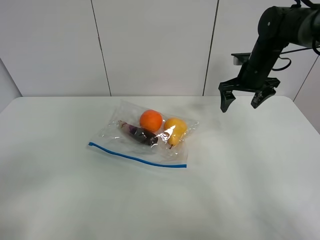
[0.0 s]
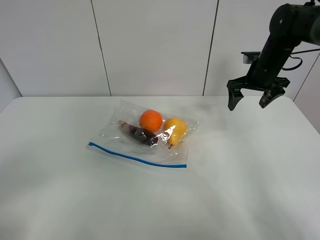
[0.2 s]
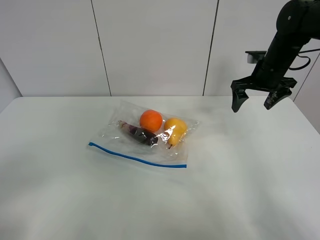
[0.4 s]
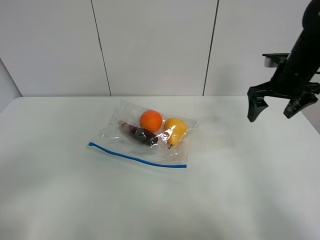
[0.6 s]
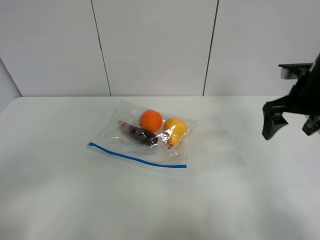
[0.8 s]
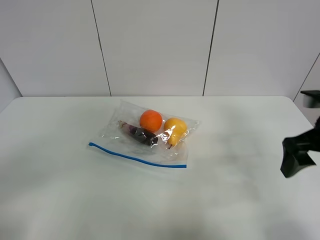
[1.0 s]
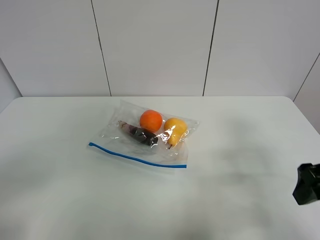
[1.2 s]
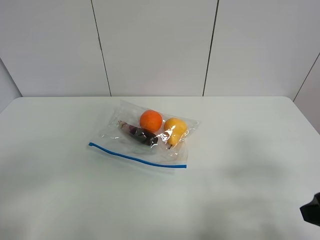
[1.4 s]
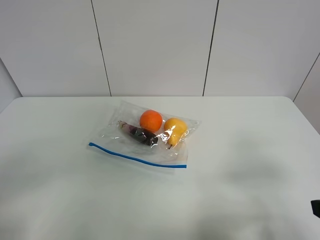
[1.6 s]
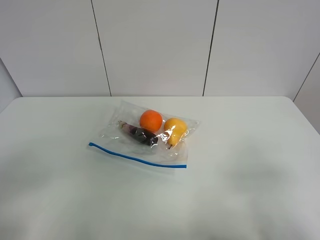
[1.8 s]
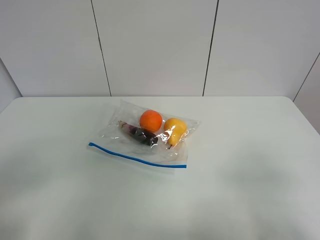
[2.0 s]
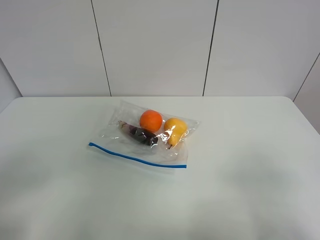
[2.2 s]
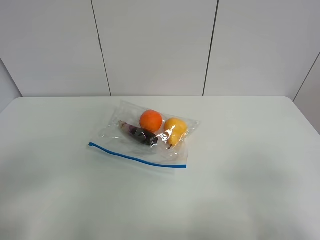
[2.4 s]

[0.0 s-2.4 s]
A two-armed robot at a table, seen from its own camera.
0.0 to 1.2 s: The right gripper heads backward, covering some 30 cm.
1.2 to 2.4 s: The right gripper shifts roughly 15 cm backward.

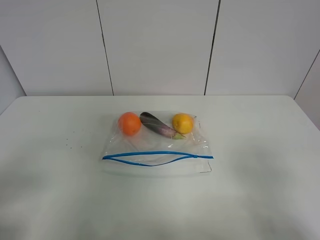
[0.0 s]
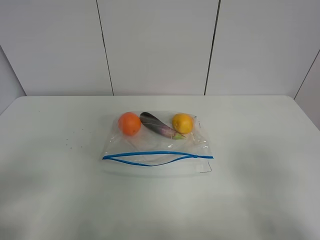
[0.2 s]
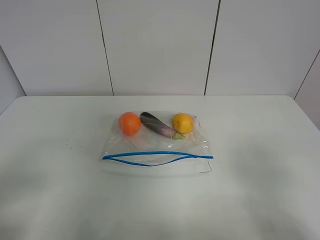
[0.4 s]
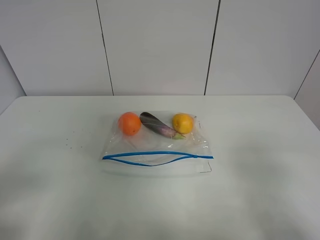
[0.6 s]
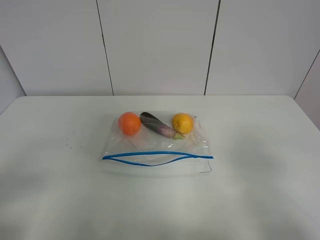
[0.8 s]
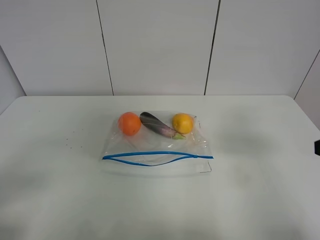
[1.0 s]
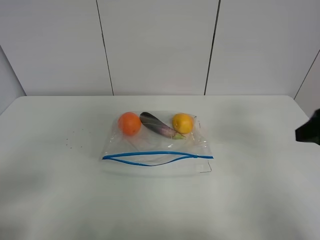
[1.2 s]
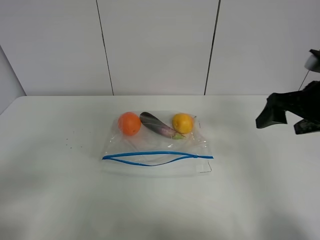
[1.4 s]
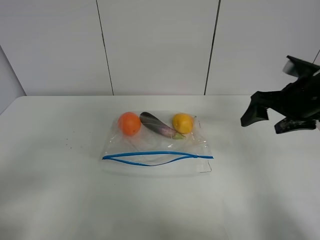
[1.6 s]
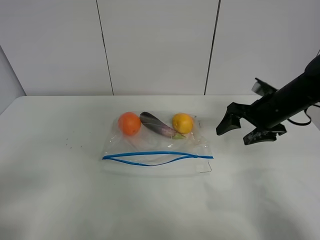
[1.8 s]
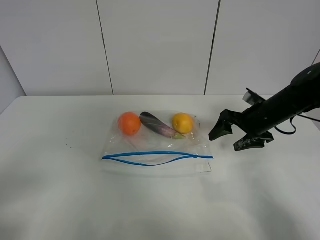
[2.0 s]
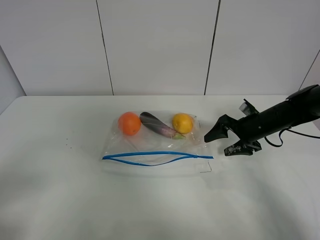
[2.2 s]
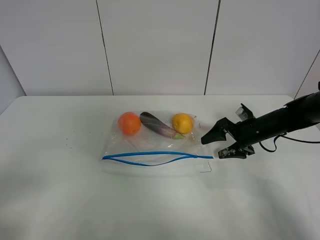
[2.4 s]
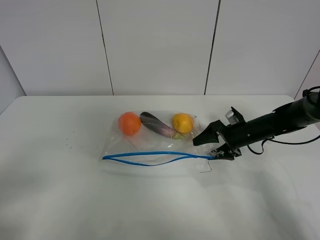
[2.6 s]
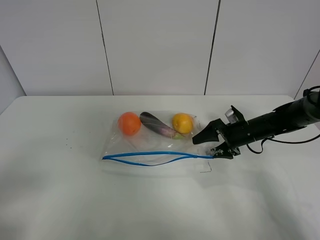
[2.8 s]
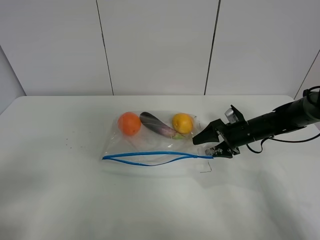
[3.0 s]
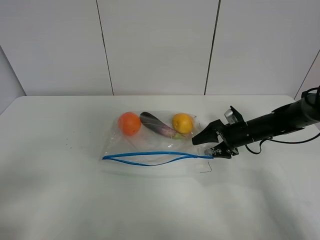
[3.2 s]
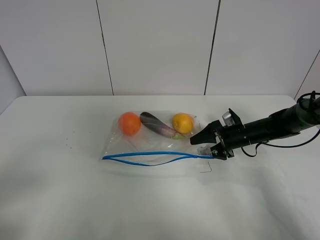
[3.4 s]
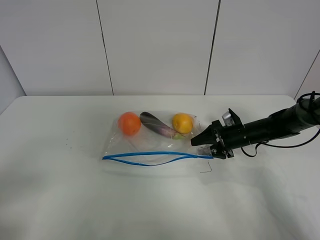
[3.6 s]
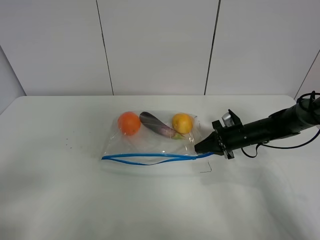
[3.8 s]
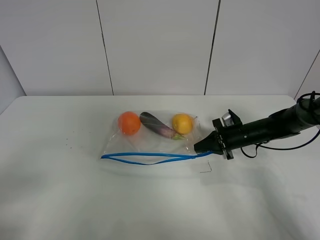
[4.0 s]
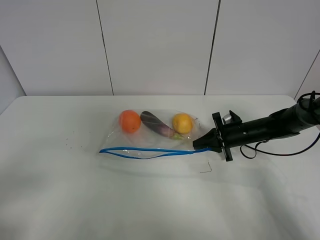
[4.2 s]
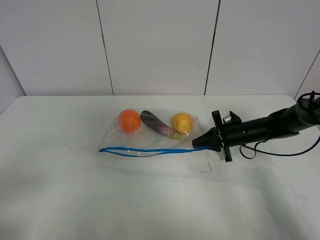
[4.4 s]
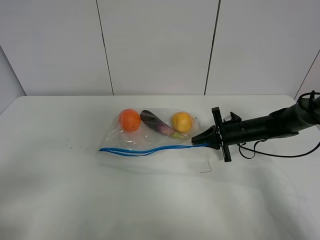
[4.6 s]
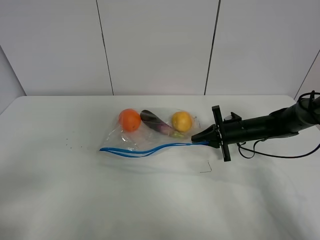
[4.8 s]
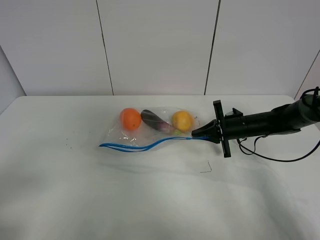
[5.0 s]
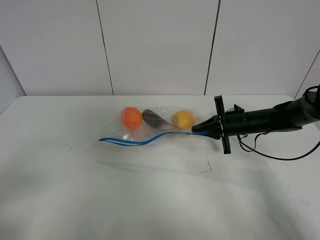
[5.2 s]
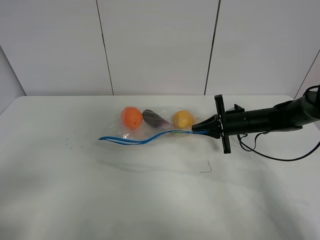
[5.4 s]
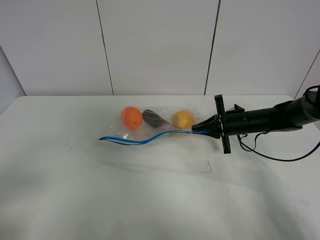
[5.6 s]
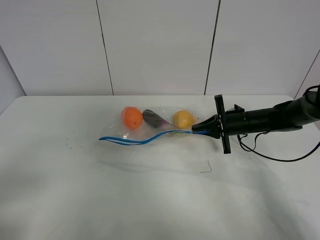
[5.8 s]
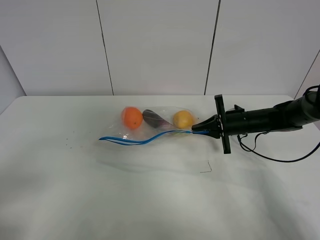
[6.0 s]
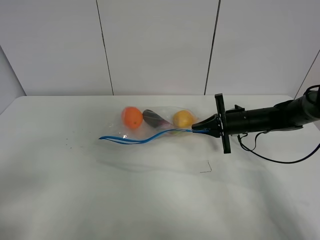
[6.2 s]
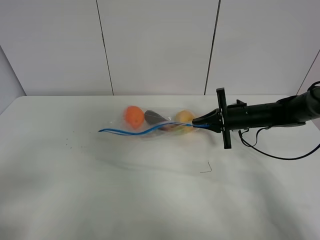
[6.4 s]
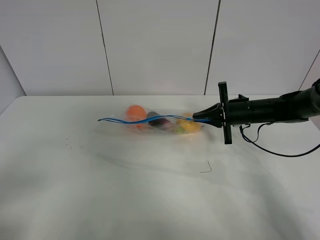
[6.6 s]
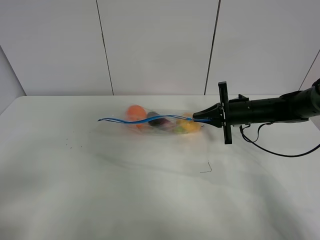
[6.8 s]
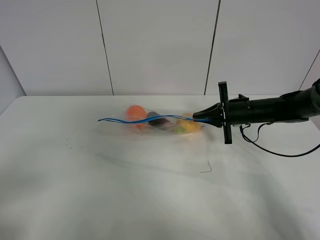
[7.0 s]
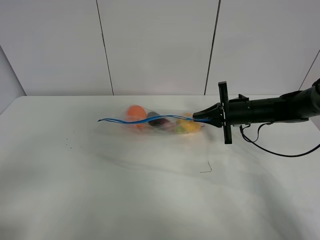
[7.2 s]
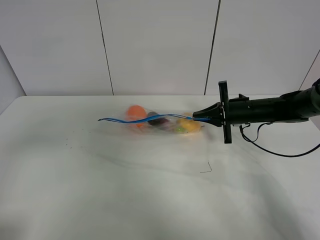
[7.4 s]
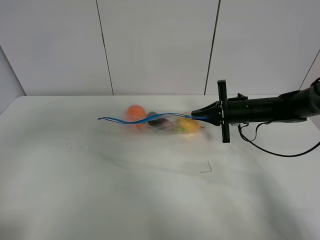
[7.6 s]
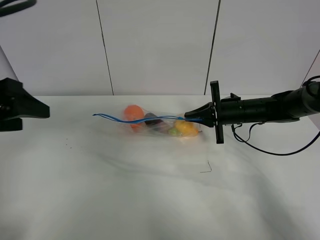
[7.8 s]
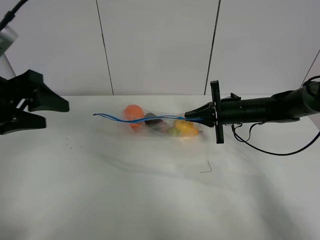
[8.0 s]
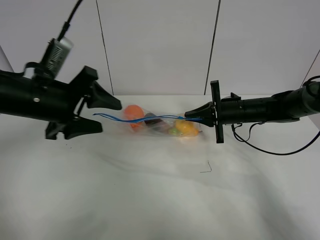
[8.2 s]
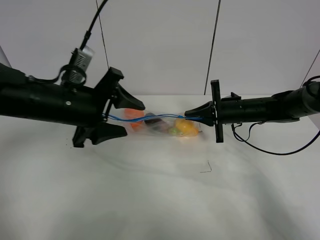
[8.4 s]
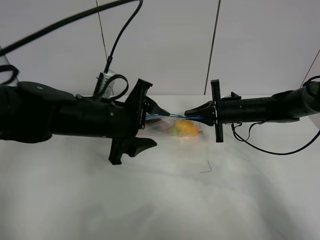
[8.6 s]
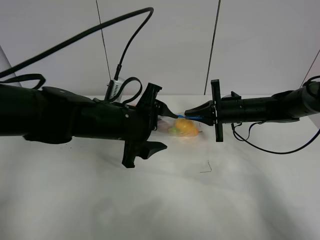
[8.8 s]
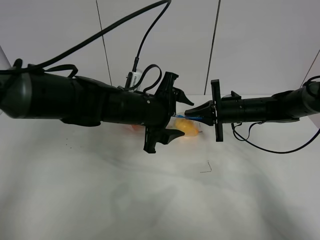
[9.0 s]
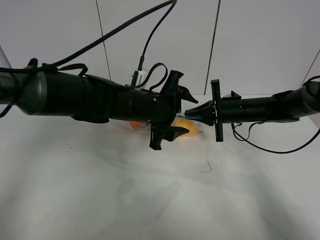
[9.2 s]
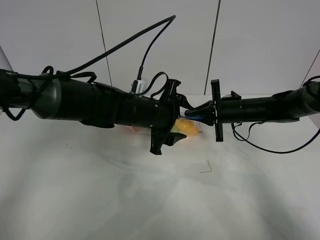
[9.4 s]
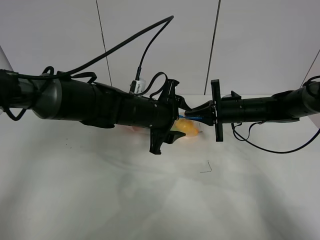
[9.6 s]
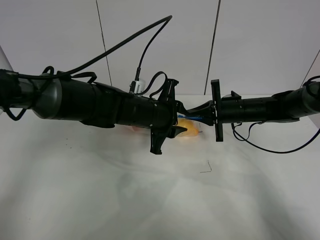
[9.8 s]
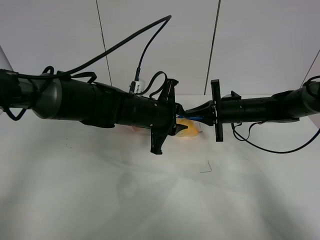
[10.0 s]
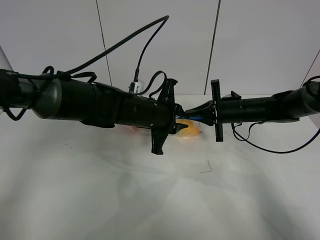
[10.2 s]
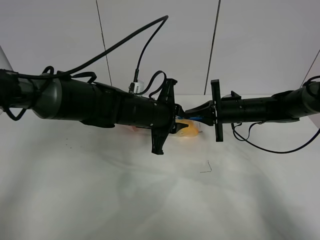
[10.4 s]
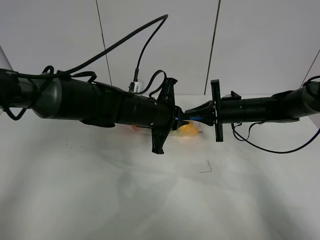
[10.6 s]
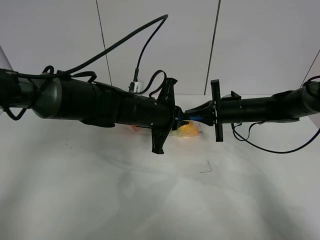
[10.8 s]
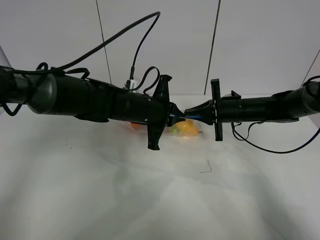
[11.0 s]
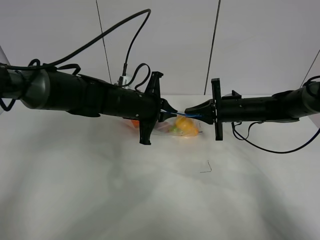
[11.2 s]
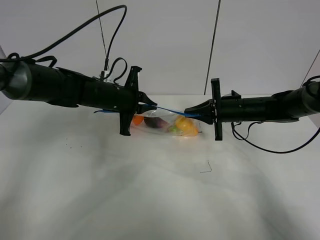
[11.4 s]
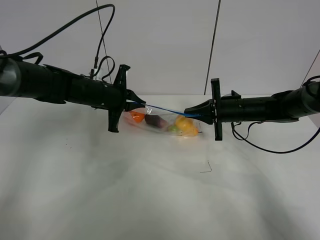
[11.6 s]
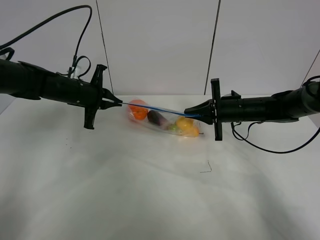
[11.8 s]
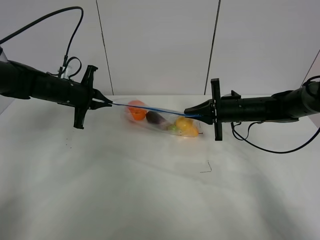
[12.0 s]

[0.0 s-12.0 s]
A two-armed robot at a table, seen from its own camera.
Step, 0.0 to 3.8 s: Grasp the fruit bag with right gripper.
Step, 4.0 to 6.8 s: Lift the fruit bag with your right gripper.
0.0 to 1.6 s: The right gripper travels forward by roughly 30 cm.
1.6 to 3.0 s: The right gripper travels downward and forward by about 20 cm.
3.0 to 4.4 s: The right gripper closes up.
4.4 to 6.0 s: The grippers make only small movements.
6.0 to 7.6 s: The left gripper shifts some 15 cm forward and upward.
7.6 to 9.0 s: The left gripper shifts roughly 30 cm to the right, forward and downward.
9.0 to 10.4 s: The left gripper closes its fingers.
10.4 to 12.0 s: The left gripper heads to the left and forward, covering roughly 25 cm.

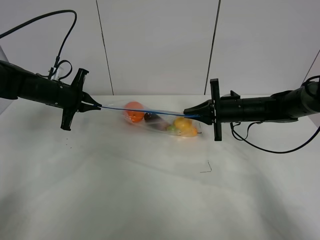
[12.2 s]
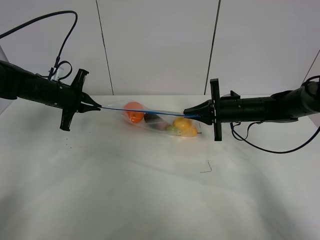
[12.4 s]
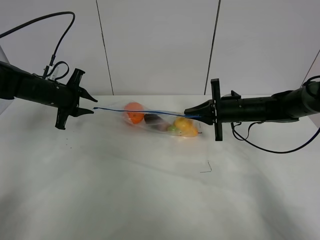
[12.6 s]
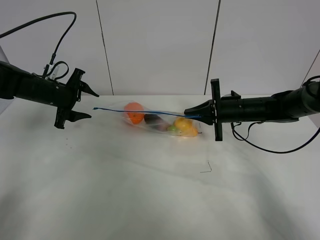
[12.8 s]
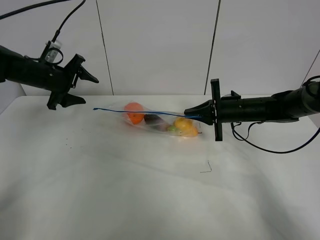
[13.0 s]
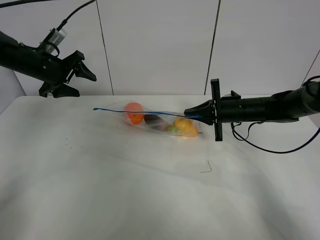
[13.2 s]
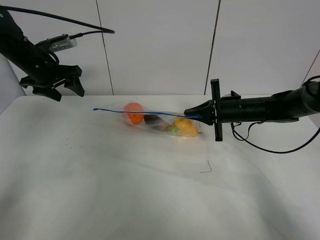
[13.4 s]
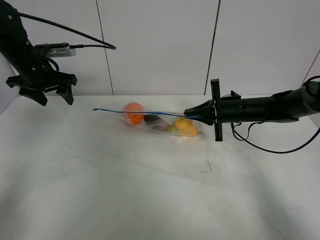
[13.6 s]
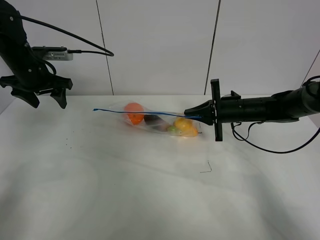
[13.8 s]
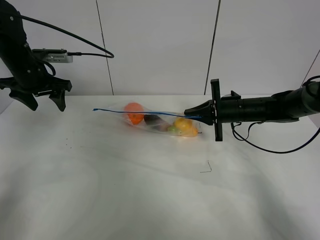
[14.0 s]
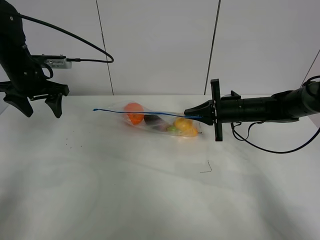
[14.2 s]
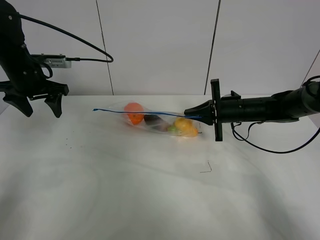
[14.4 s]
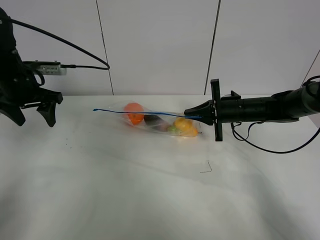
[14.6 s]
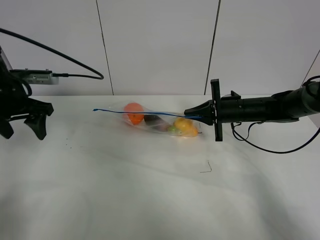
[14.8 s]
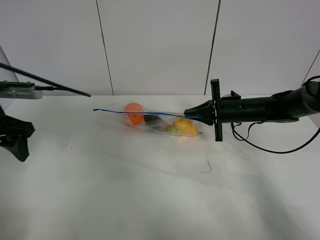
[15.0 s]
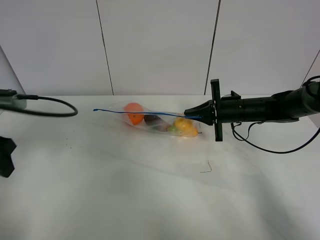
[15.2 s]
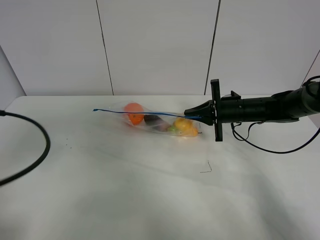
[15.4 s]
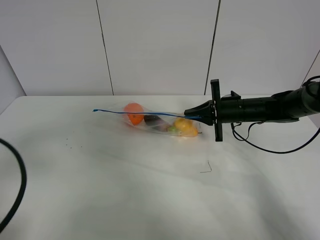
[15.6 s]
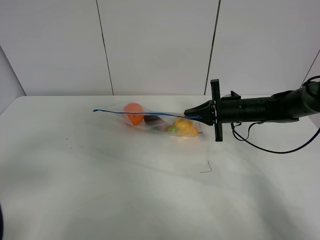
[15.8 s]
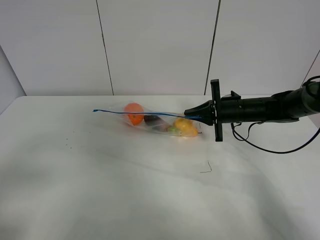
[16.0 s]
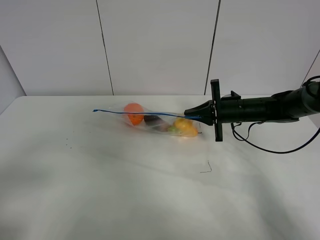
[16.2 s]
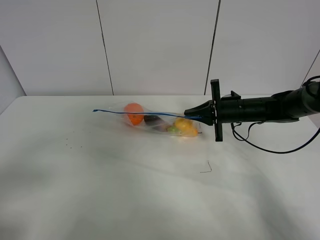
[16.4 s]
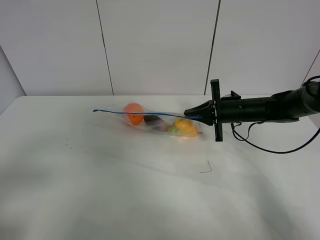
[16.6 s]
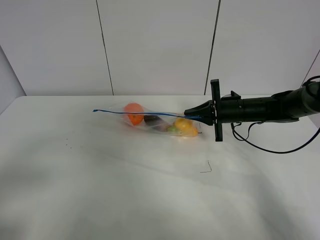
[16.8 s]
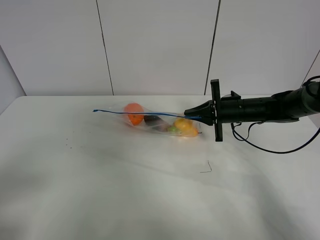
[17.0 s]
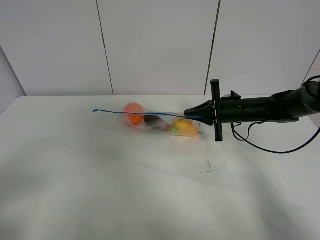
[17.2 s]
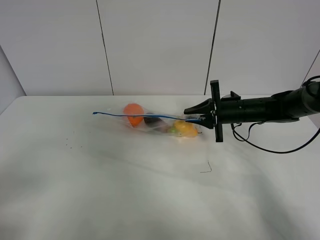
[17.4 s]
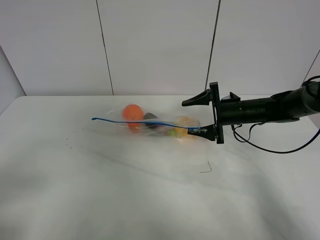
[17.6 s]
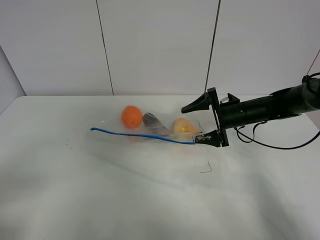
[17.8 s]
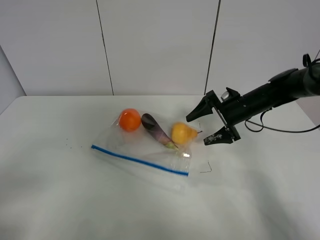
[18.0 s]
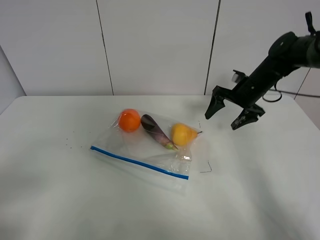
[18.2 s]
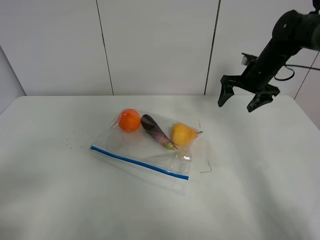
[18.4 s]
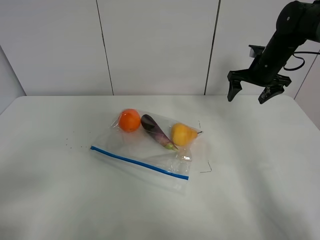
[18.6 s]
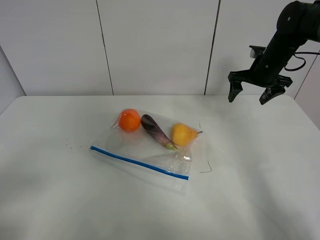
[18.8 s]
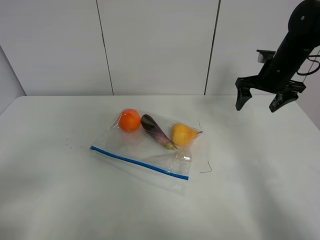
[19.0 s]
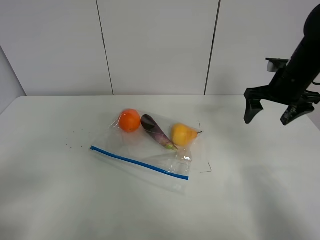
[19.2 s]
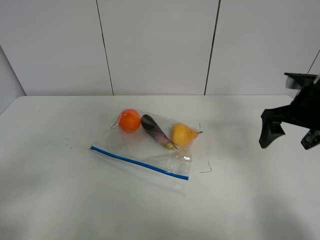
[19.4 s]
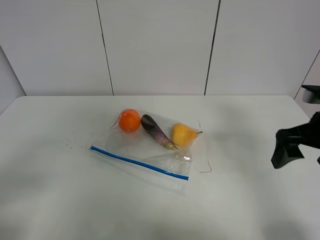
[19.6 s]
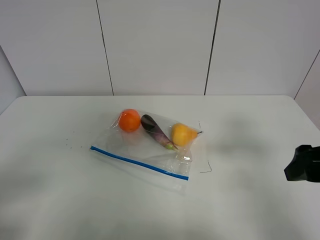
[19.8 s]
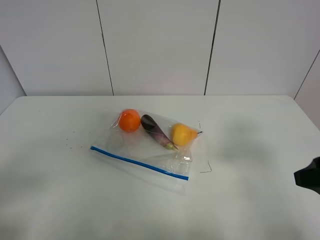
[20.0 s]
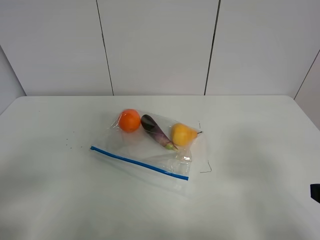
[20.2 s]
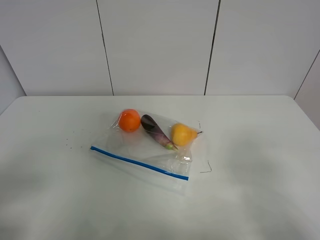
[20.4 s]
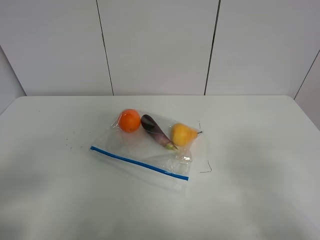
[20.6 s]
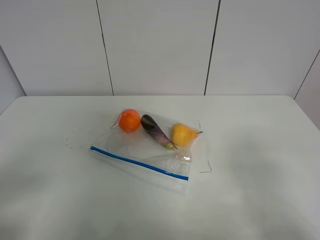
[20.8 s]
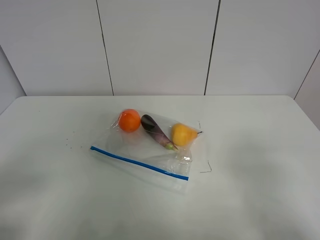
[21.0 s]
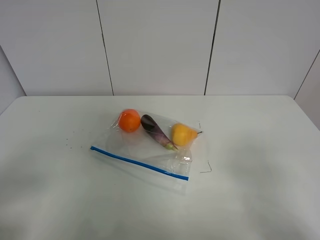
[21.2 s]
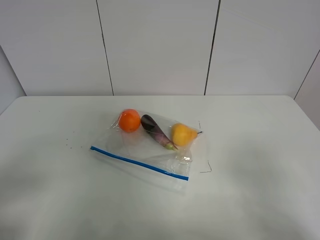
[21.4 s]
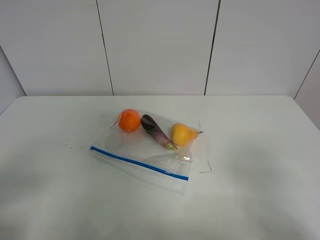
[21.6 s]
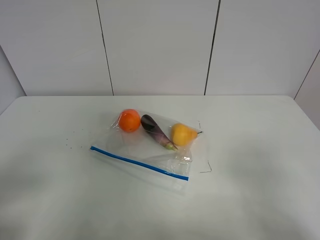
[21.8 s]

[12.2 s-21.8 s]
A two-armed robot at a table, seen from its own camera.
12.2 to 13.8 s: The left gripper goes approximately 10 cm upward, and opens its fingers.
13.8 to 15.4 s: The left gripper goes approximately 30 cm backward.
15.4 to 17.0 s: The left gripper travels backward by some 10 cm.
17.0 to 18.6 s: The right gripper goes roughly 15 cm upward, forward and to the right, and opens.
18.6 to 20.2 s: The right gripper moves backward, approximately 40 cm.
